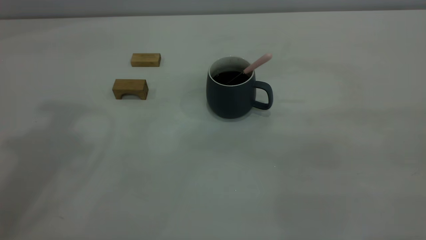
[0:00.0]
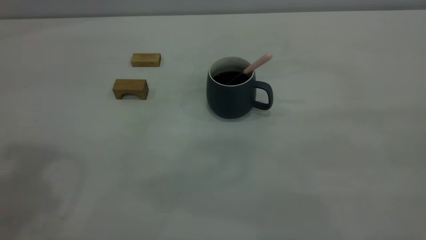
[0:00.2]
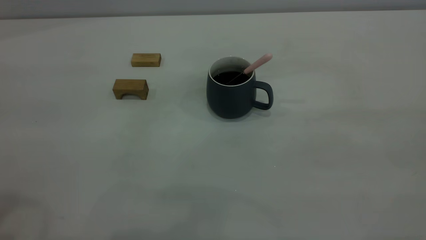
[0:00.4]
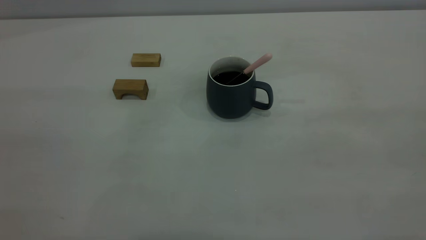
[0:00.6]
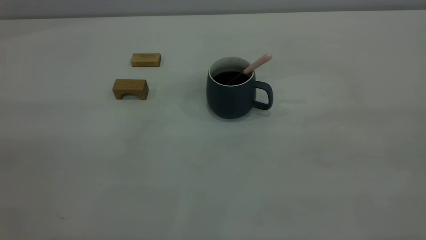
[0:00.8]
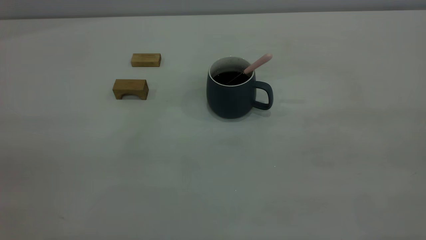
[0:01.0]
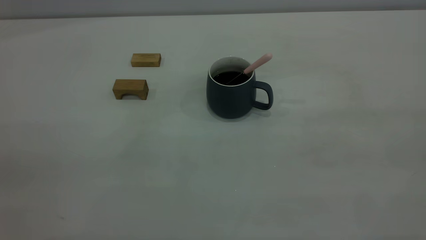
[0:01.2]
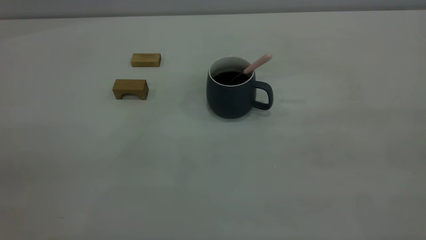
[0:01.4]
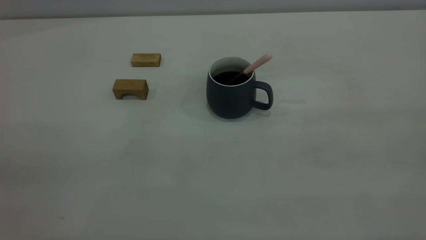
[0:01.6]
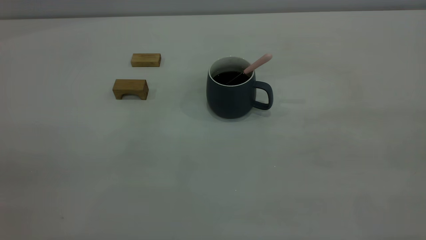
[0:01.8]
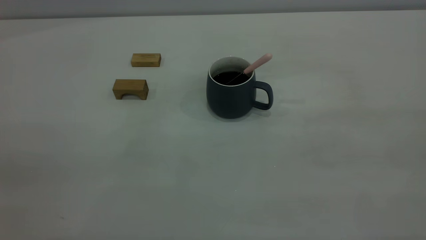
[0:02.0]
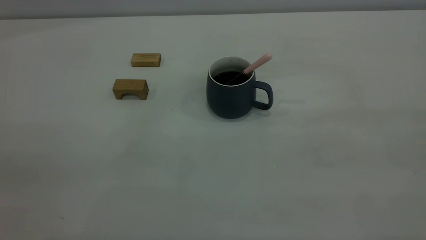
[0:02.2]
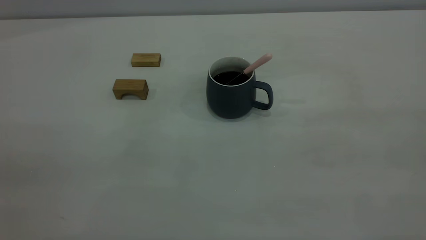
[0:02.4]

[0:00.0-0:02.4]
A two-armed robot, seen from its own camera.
0:01.2 to 0:02.4: The two grippers keep their place.
